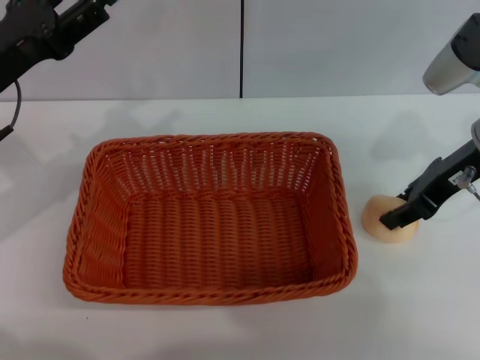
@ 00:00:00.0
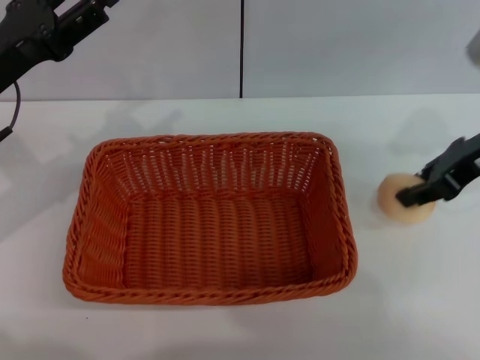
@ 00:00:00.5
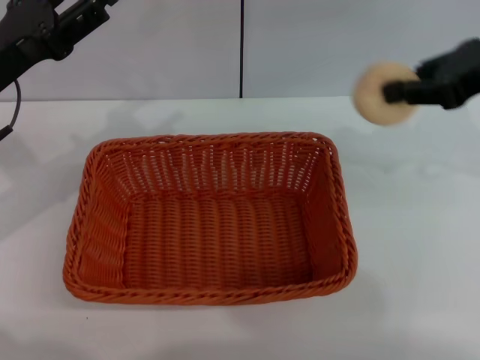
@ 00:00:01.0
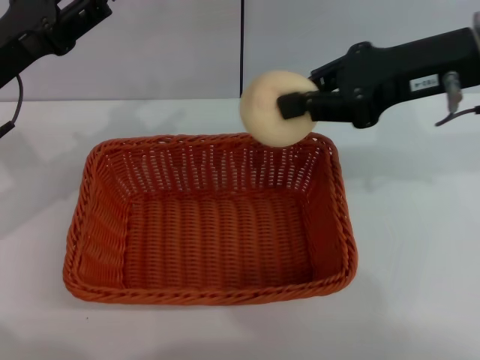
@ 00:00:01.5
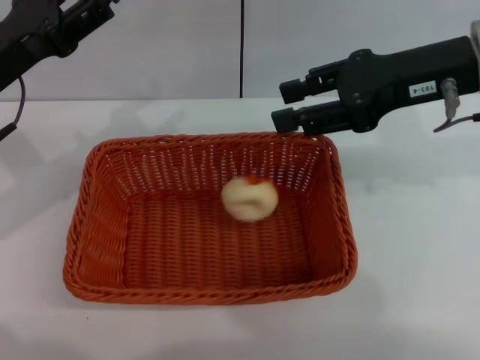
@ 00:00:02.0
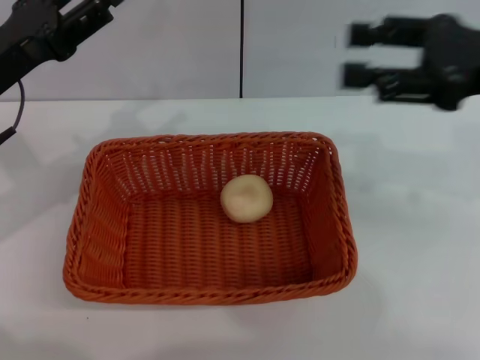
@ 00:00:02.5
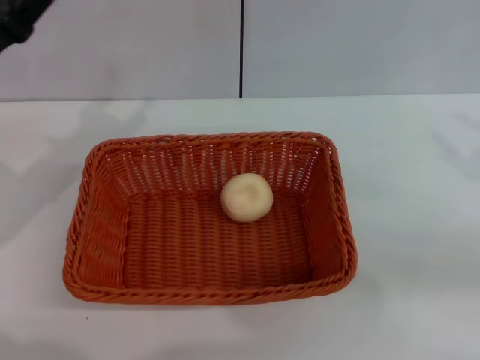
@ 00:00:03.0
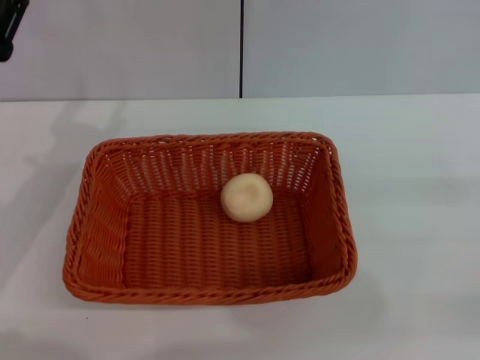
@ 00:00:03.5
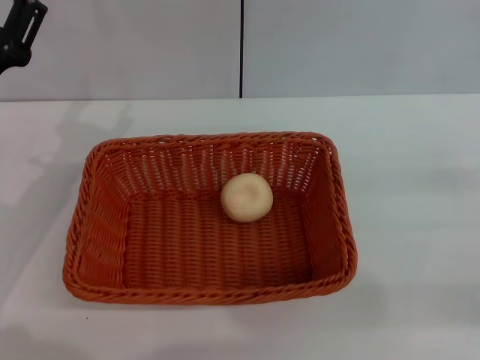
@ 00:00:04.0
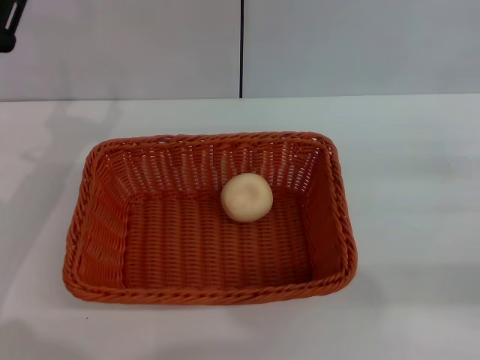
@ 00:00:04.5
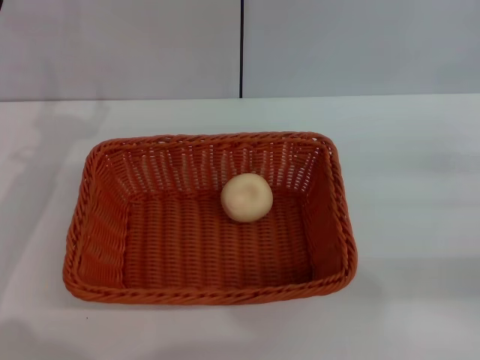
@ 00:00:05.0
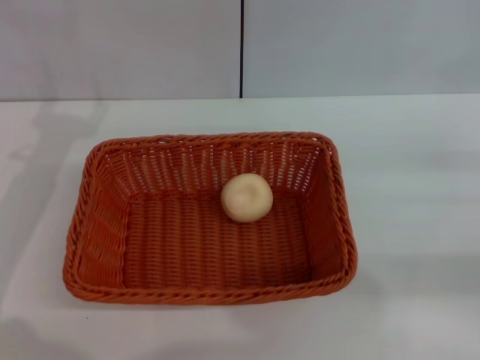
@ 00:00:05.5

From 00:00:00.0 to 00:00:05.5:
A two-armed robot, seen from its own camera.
Step, from 00:00:01.0 to 00:00:02.0: Place the egg yolk pastry into the basket with the right gripper.
From 00:00:00.0 to 00:00:02.0: The right gripper goes some 10 cm upward, and closes, then reopens.
From 00:00:02.0 to 00:00:03.5: The right gripper is displaced to the right, backward and downward by about 25 cm, and opens its fingers; the left gripper ends up approximately 5 cm from where it was.
